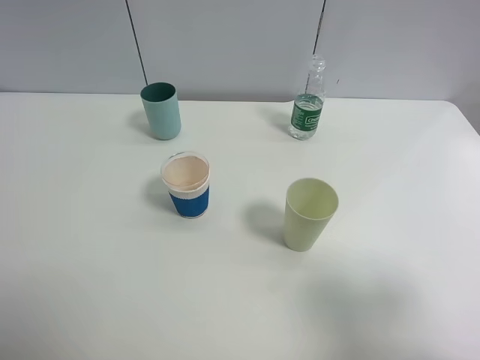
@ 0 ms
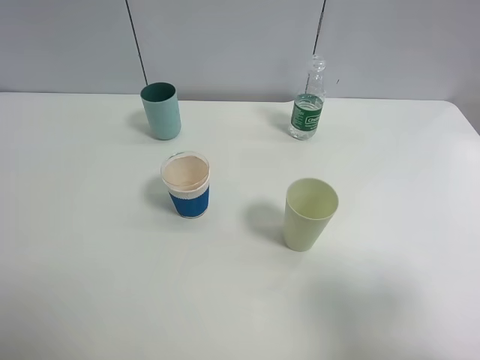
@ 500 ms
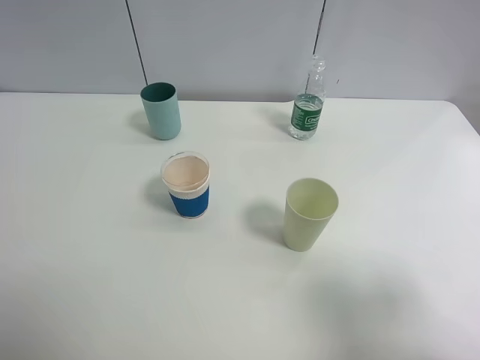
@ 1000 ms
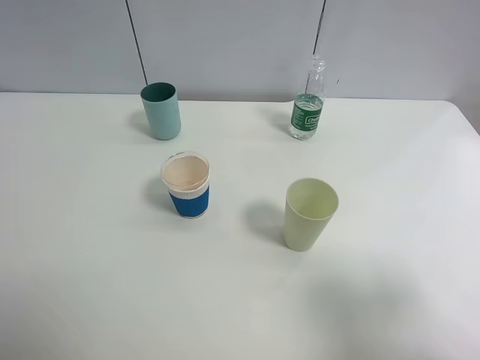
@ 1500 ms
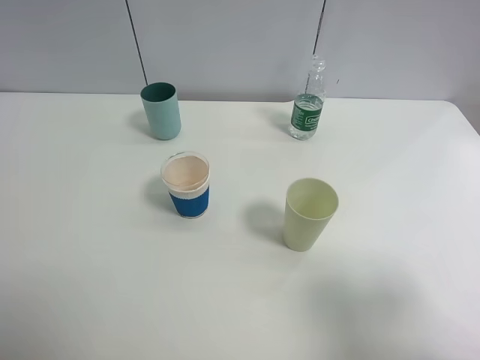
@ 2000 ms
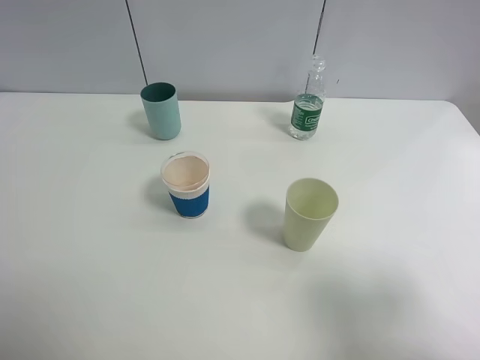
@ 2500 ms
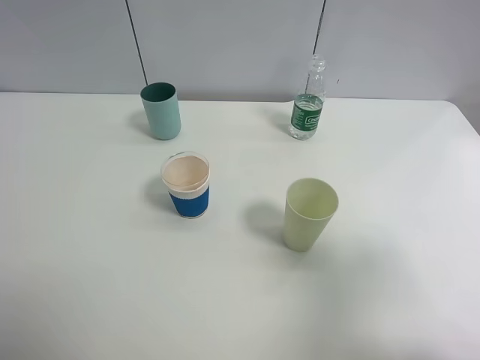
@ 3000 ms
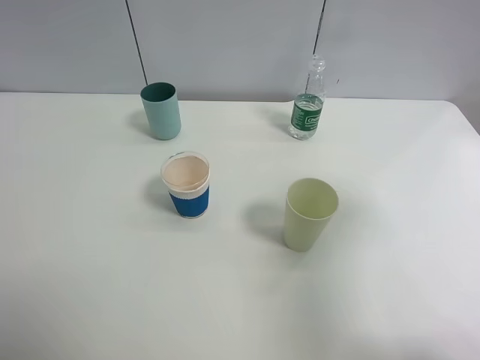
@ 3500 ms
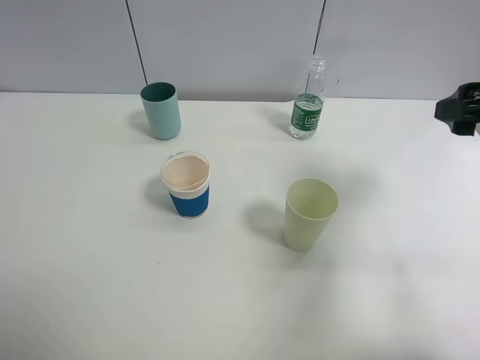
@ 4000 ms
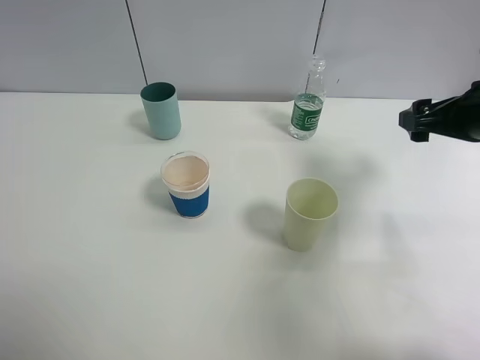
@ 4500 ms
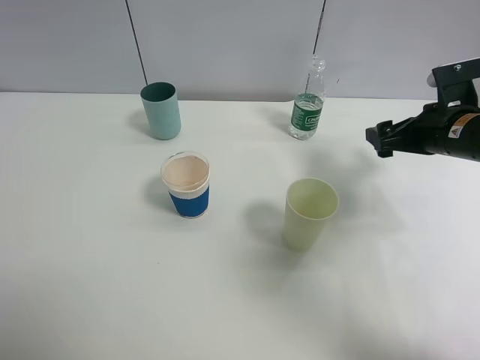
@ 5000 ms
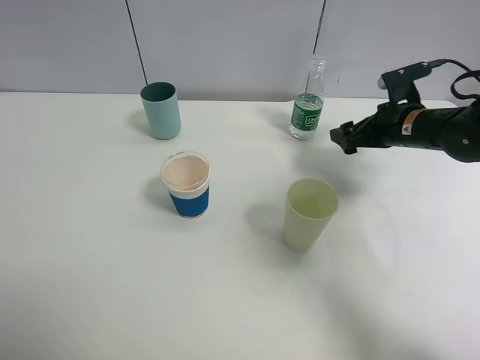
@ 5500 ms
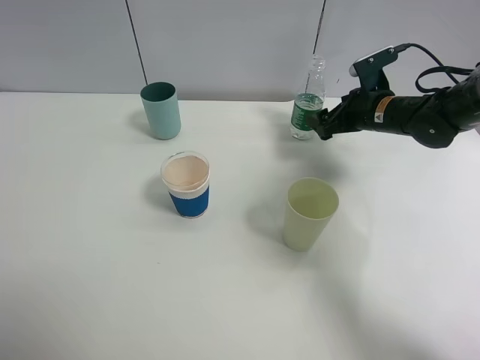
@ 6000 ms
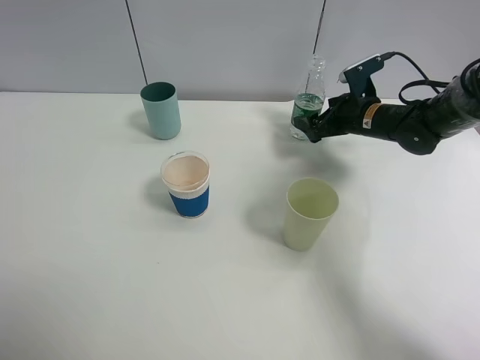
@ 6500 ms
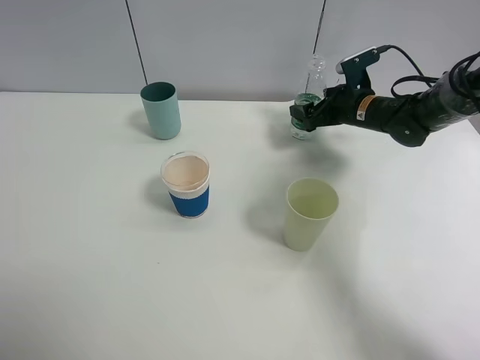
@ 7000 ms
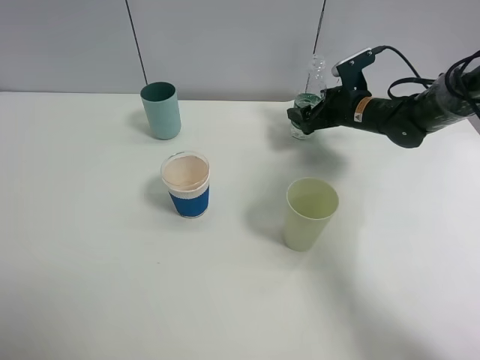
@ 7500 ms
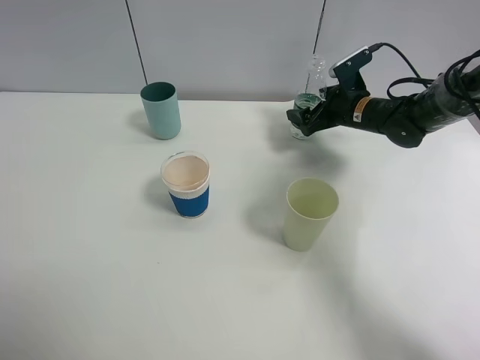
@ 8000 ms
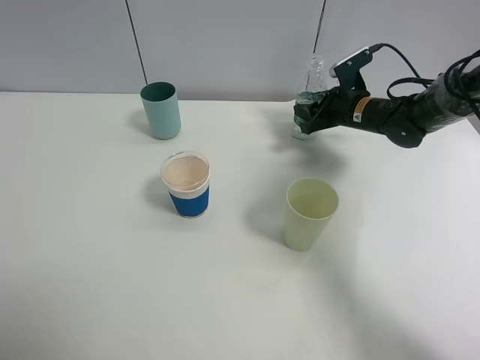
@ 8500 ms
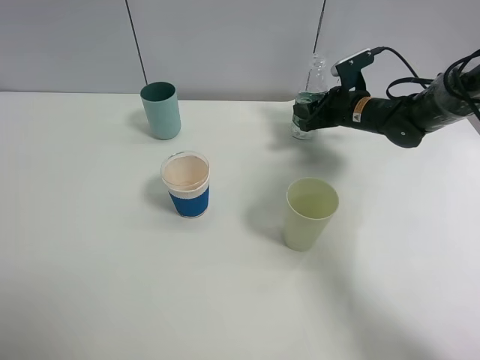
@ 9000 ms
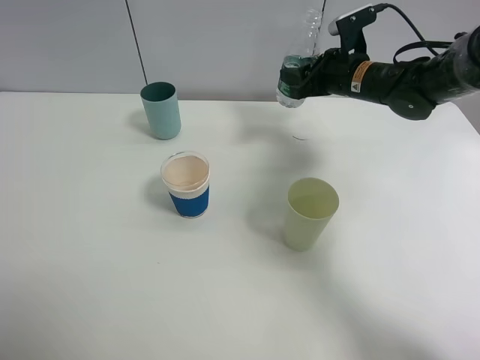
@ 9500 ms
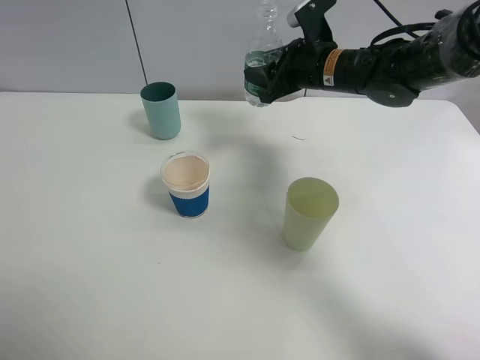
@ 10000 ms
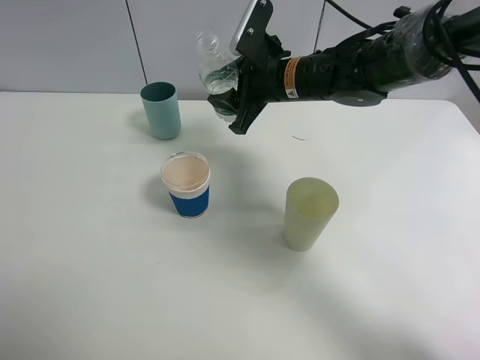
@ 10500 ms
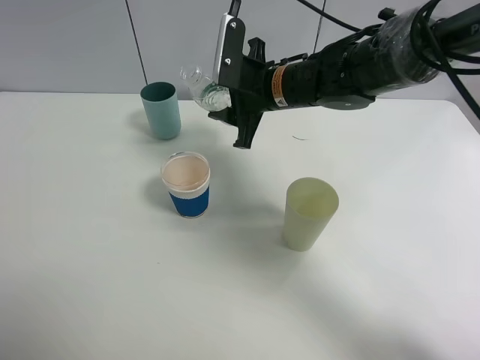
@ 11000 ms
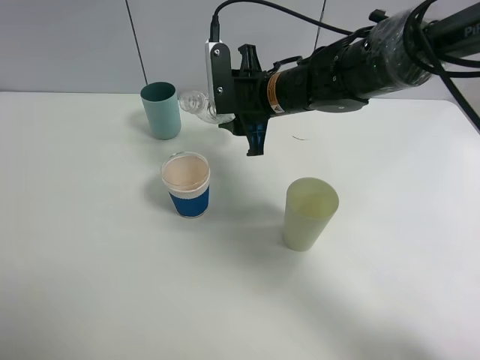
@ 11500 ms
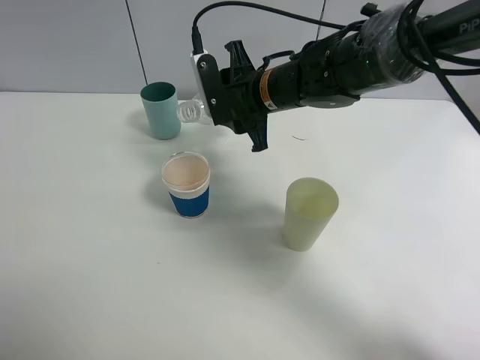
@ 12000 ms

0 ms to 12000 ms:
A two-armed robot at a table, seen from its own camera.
Task of the whole recording: use a clamp to hold the bottle of the drink, pour the beverage into a random cup, then clamp the cup containing the drink and pour the drink into another random cup.
Step, 0 ms to 9000 ms: Pick up the water bottle with right gripper.
0 ms to 2000 ms: Both grippers stay put.
2000 ms to 4000 ms: The right gripper moves forward, about 20 cm.
4000 ms to 6000 ms: The right gripper heads forward and downward, covering some 25 cm.
6000 ms to 8000 ms: The grippers stay close to where they were, moving slightly.
8000 ms to 10000 ms: The right gripper heads upward and to the left, covering some 15 cm, and closes.
10000 ms to 12000 ms: The right gripper shifts approximately 10 cm to the left.

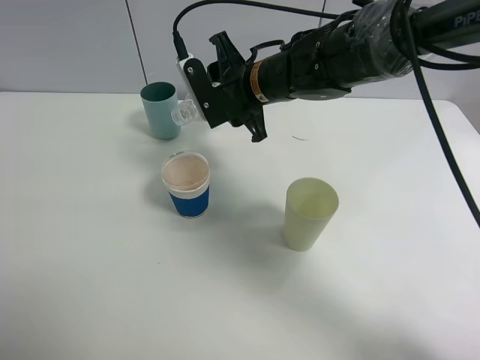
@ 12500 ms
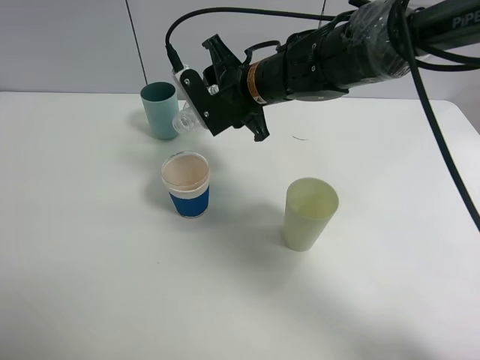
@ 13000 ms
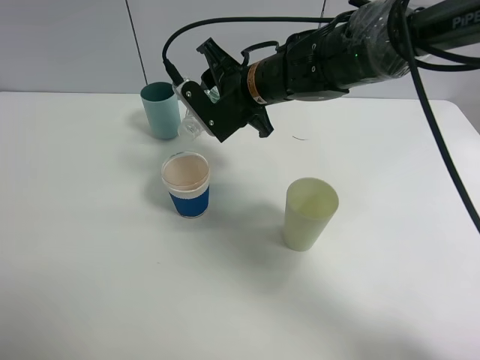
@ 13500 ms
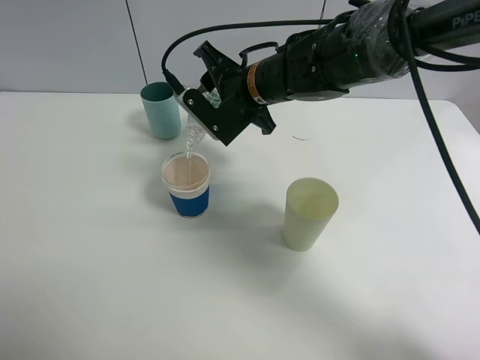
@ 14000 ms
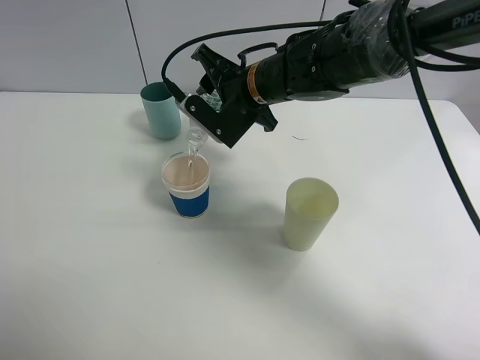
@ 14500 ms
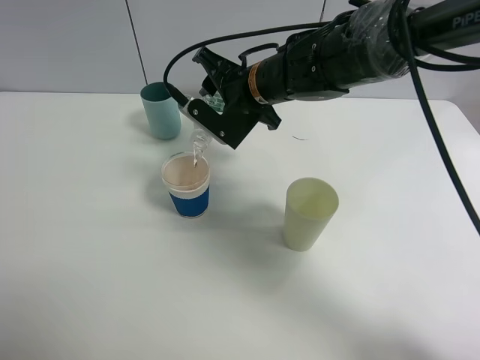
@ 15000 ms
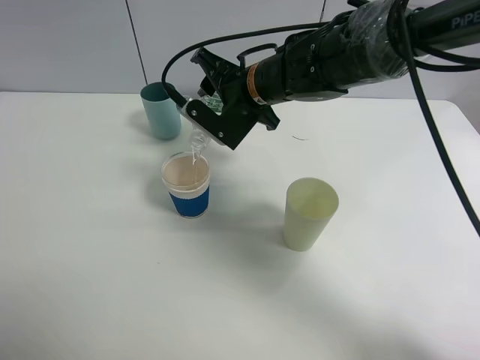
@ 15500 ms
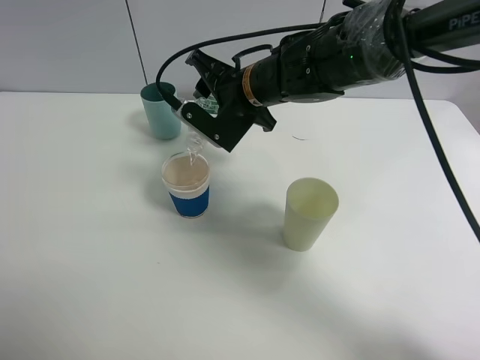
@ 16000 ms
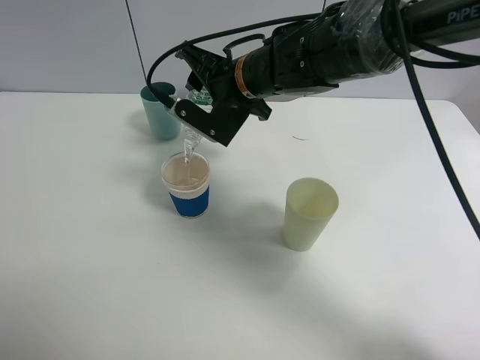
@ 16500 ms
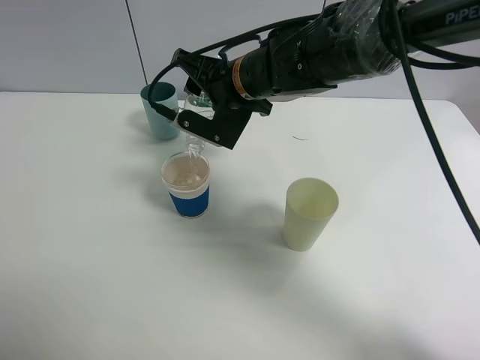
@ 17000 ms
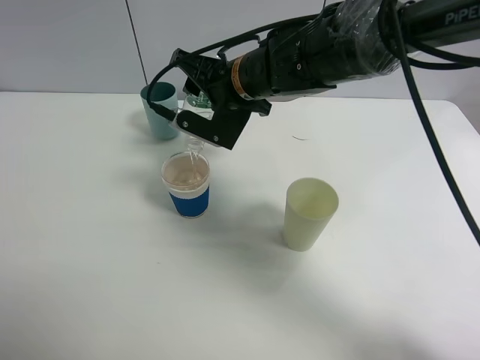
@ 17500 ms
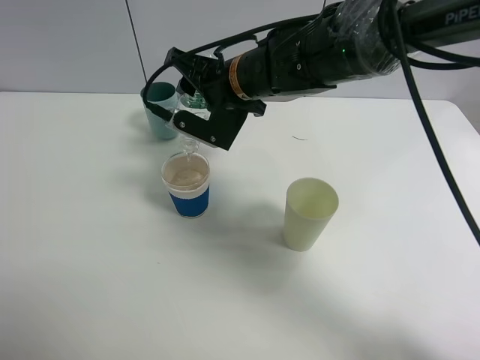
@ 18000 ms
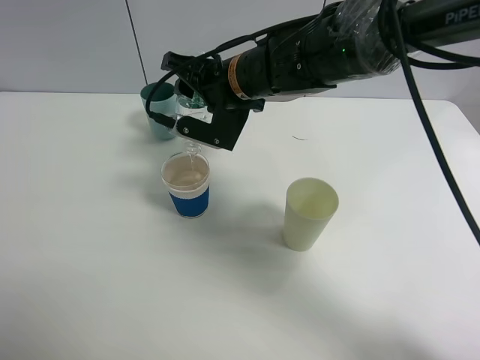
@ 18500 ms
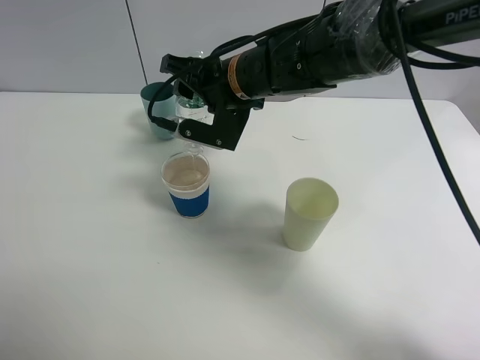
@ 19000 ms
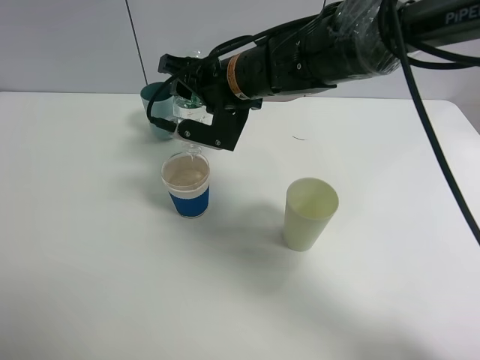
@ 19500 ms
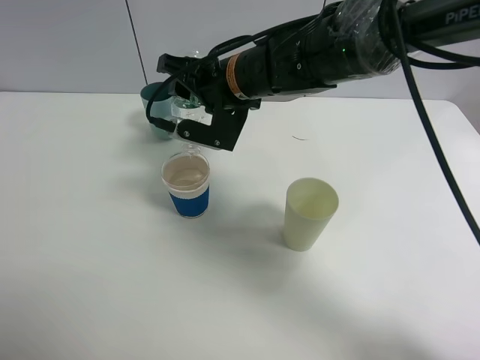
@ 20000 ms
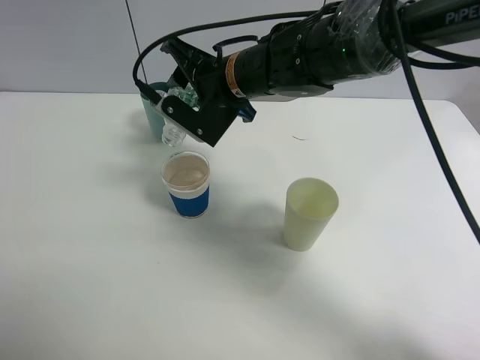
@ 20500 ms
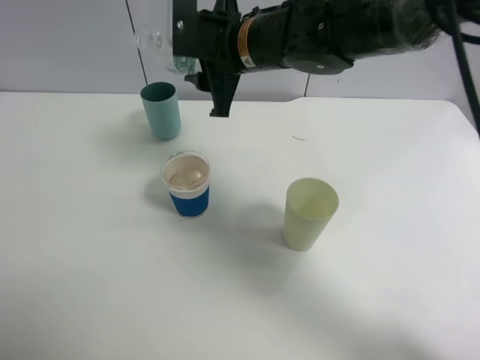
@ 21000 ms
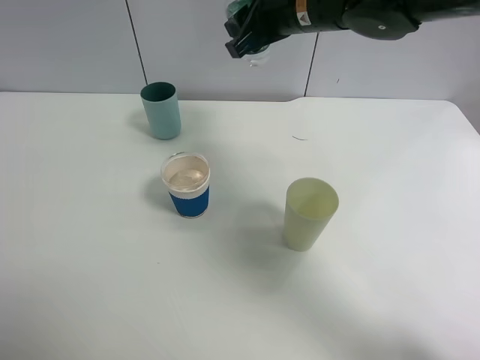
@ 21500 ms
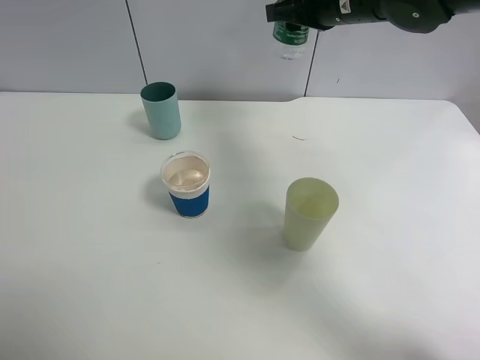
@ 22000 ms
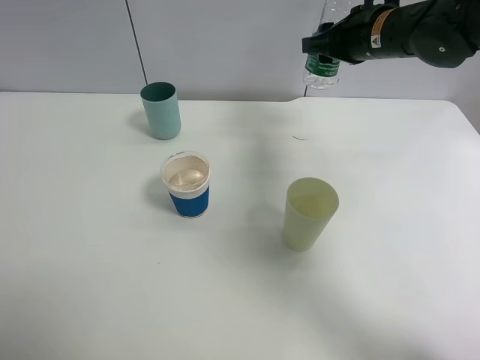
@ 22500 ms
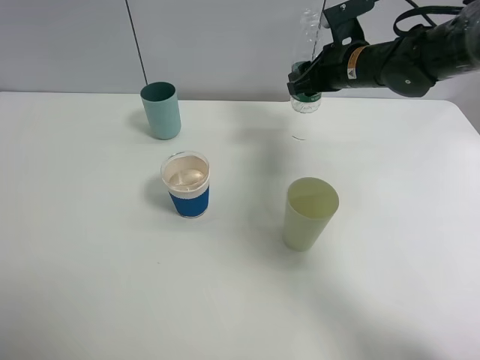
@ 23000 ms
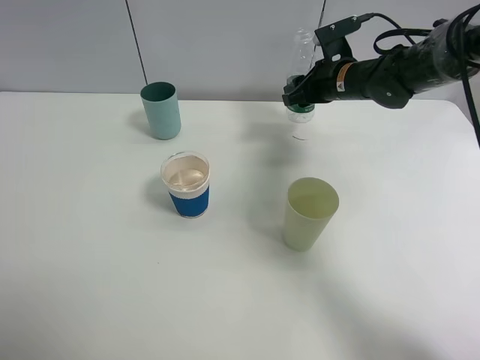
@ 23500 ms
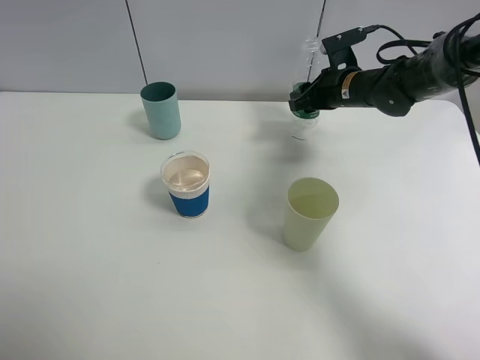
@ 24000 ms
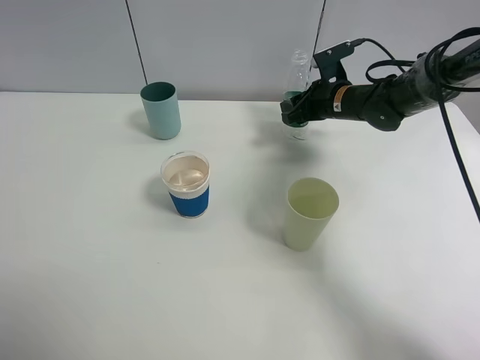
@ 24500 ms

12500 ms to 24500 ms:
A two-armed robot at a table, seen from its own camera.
Task of the whole recording: use a clamp to hold the bottle of the drink, pour the beverage into a random cup, then clamp the cup containing the drink and pour the drink into another random cup.
Step, 12500 ms to 20500 ms: Pour water into the paper cup with right gripper.
14500 ms to 16500 ms: The grippers move only a little.
16500 ms to 18500 ms: The grippers move only a little.
20500 ms to 22500 ms: The right gripper heads to the right, covering about 20 cm.
22500 ms to 24500 ms: The right gripper goes some 15 cm downward.

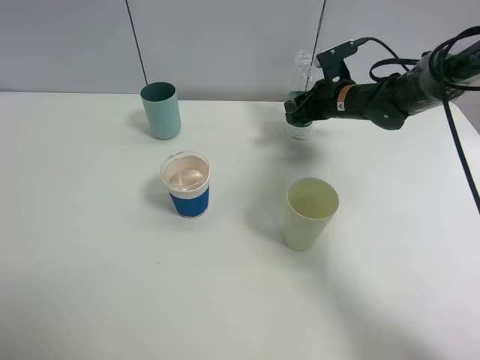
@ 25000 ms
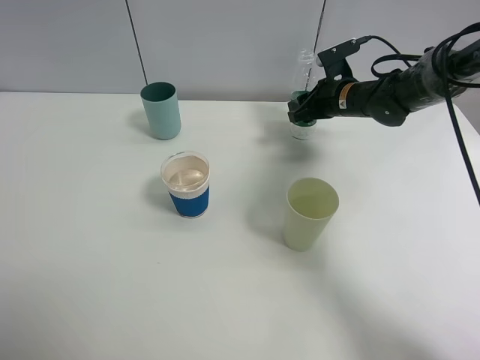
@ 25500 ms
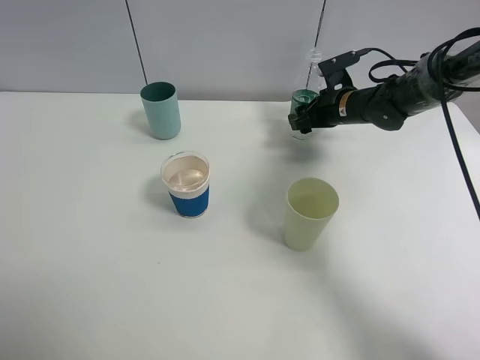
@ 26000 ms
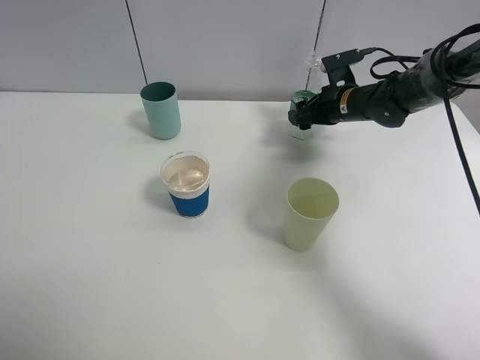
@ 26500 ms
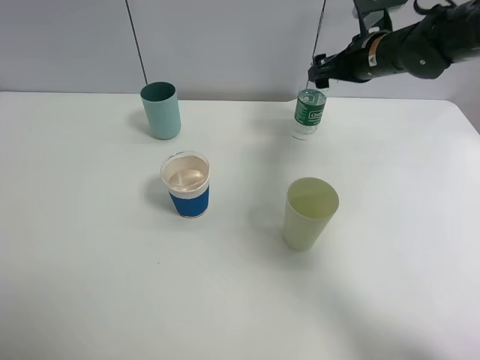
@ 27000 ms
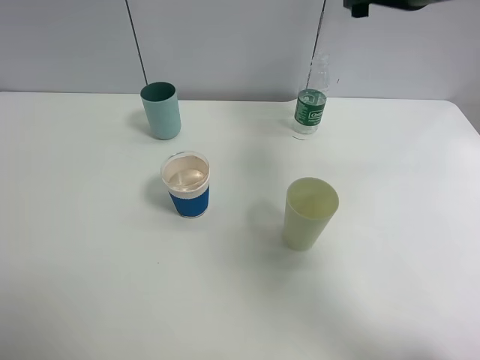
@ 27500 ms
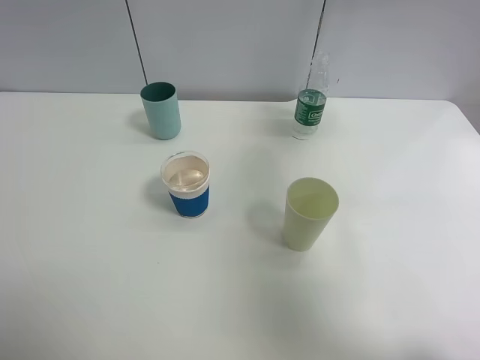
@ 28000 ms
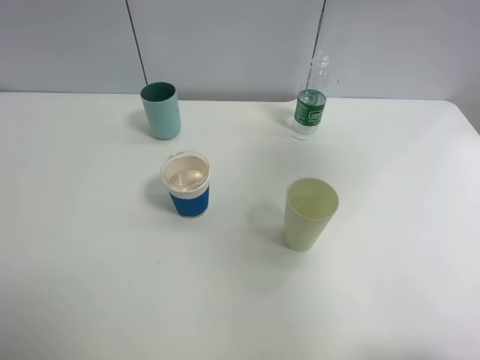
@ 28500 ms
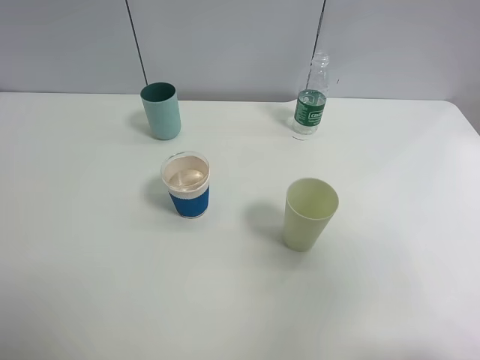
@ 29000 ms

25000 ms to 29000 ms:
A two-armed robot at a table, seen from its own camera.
Task of the whole recording: use a clamp to hold the bottle of the drink, pour the beverage into a random cup, then clamp the cup containing the drink and pour the drink into another random cup.
25000 ms to 27000 ms: The right gripper moves upward, approximately 10 cm, and opens.
27000 ms to 29000 ms: The right gripper heads backward and upward, covering approximately 50 cm.
